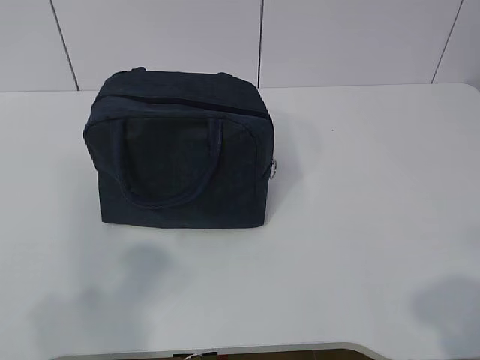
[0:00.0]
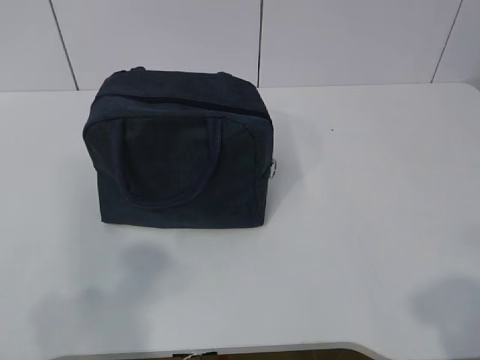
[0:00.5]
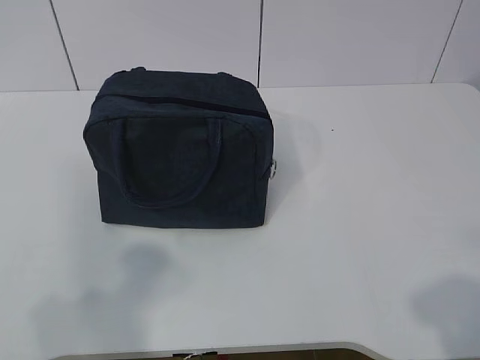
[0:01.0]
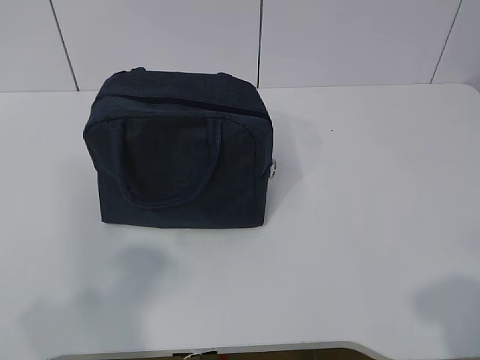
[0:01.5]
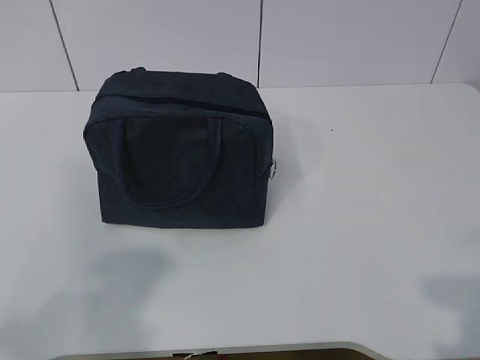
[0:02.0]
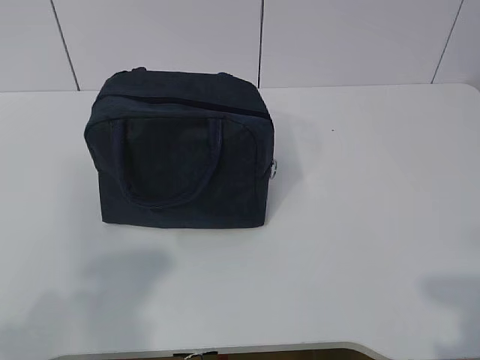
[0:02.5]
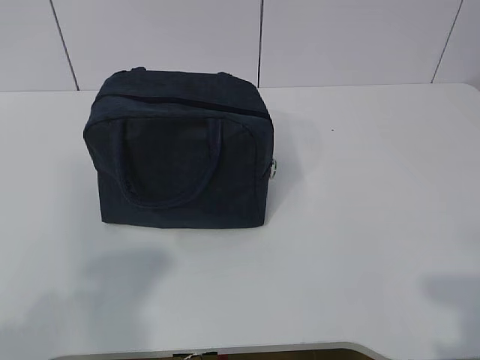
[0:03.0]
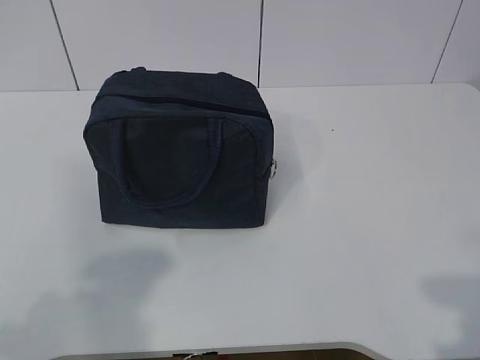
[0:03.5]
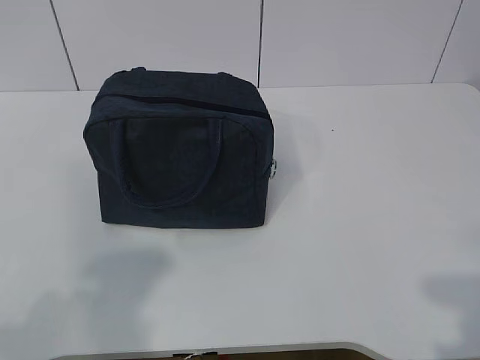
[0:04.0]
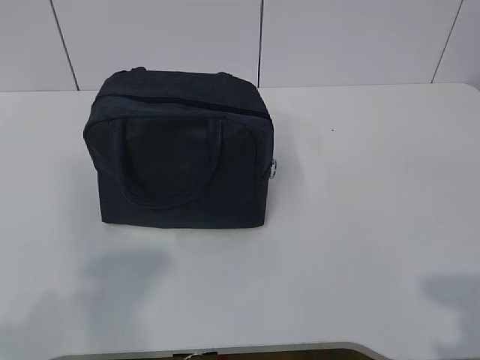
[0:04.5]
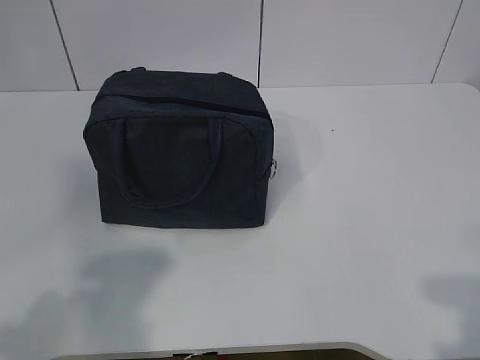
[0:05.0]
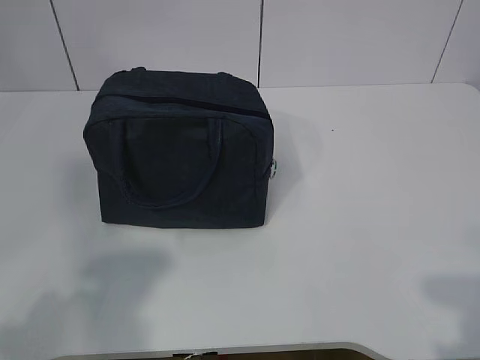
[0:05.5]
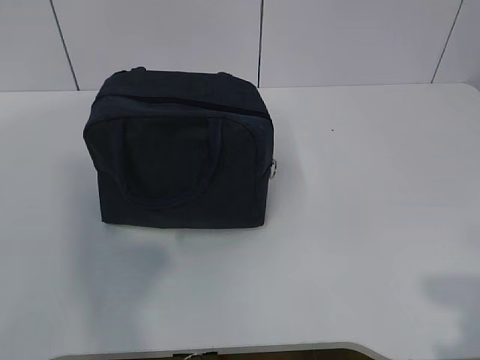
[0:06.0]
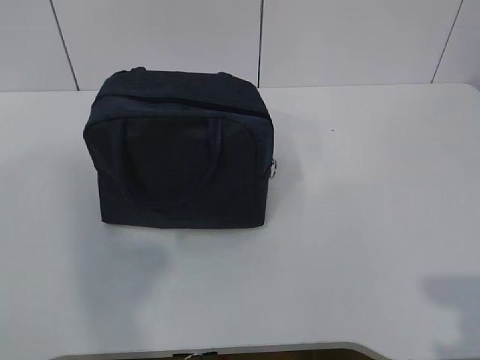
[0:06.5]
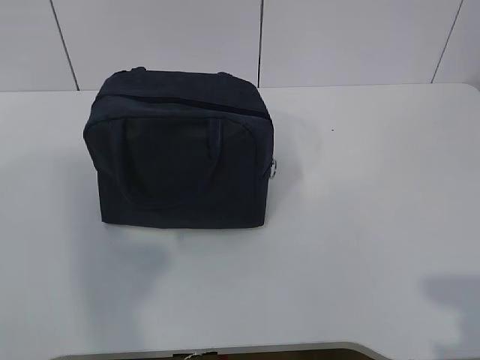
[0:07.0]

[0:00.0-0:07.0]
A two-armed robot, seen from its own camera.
0:03.5 to 0:07.0: Both grippers stay put.

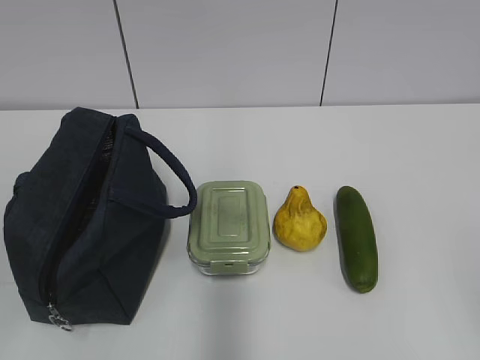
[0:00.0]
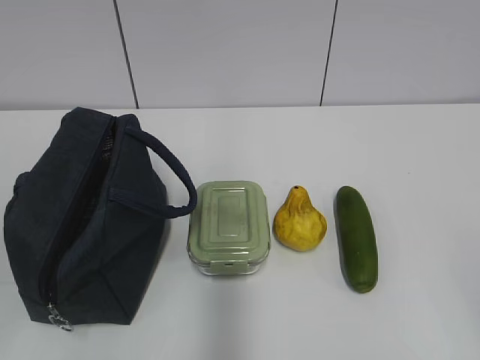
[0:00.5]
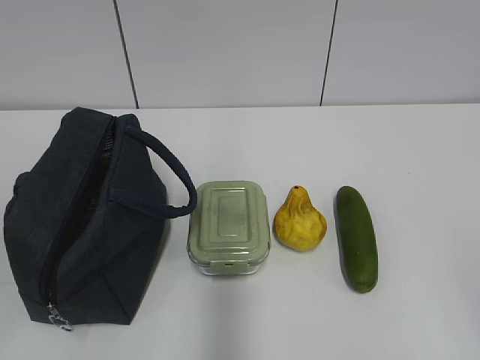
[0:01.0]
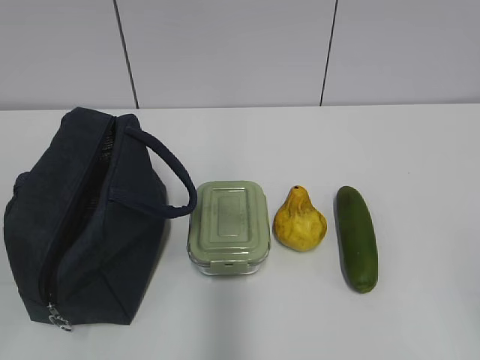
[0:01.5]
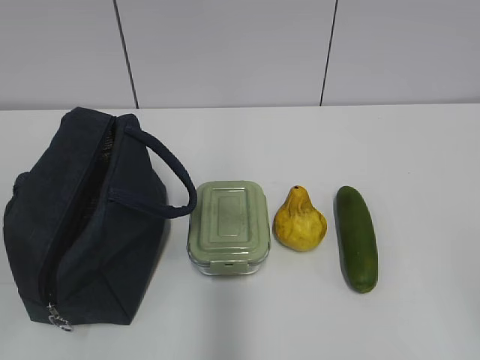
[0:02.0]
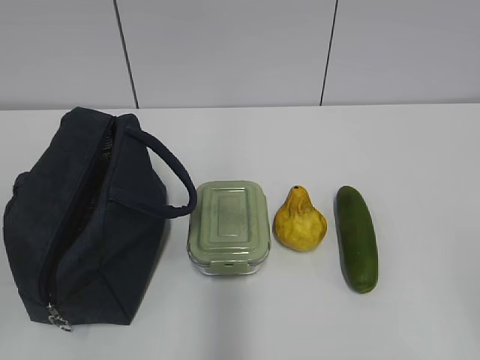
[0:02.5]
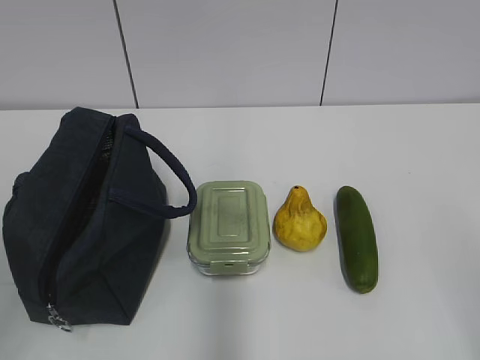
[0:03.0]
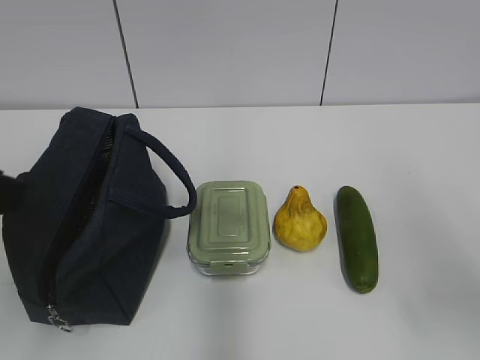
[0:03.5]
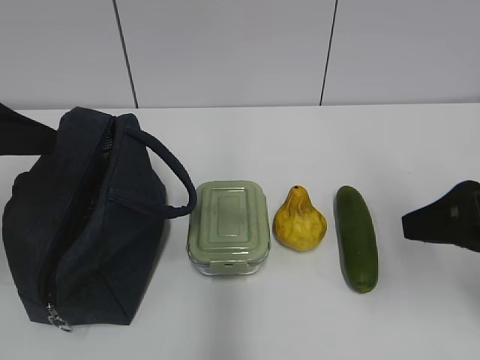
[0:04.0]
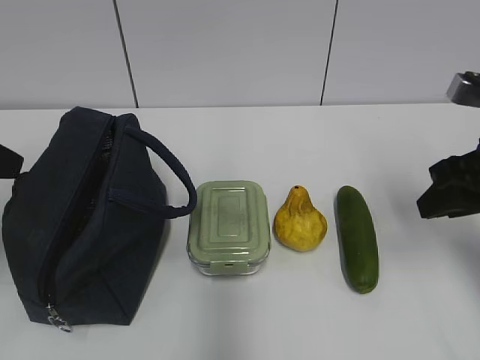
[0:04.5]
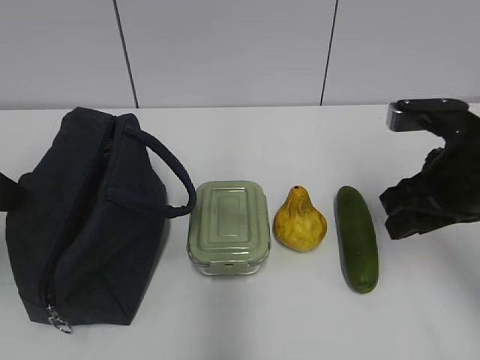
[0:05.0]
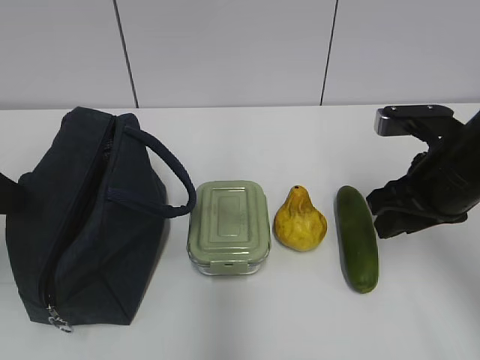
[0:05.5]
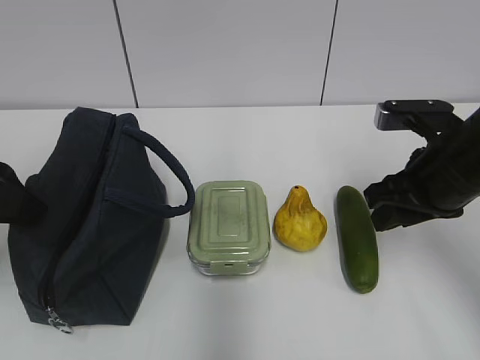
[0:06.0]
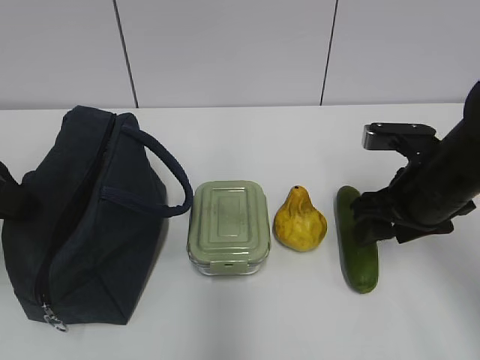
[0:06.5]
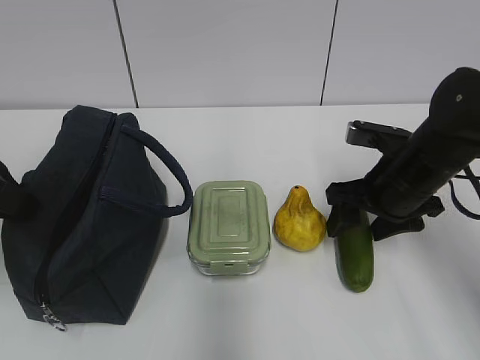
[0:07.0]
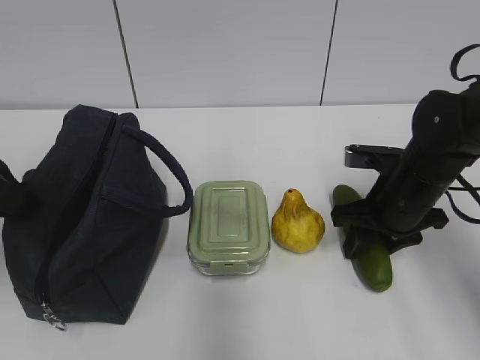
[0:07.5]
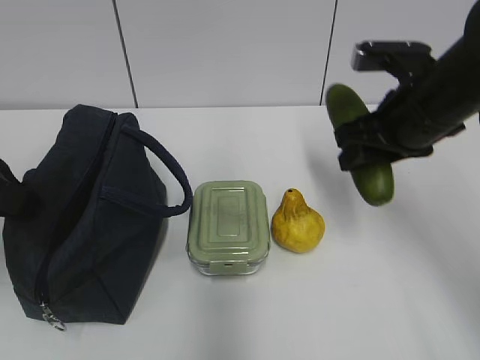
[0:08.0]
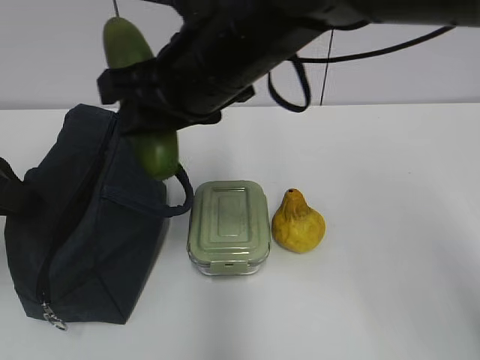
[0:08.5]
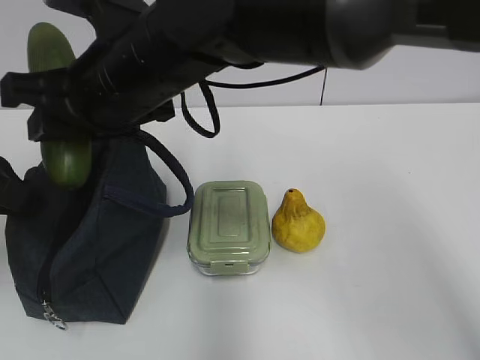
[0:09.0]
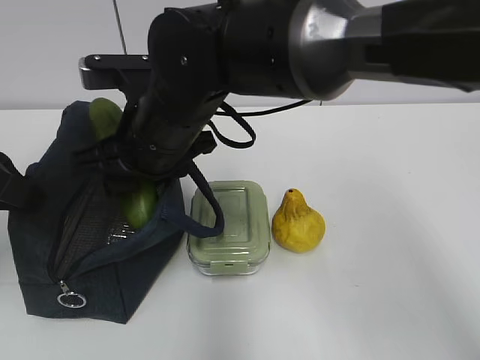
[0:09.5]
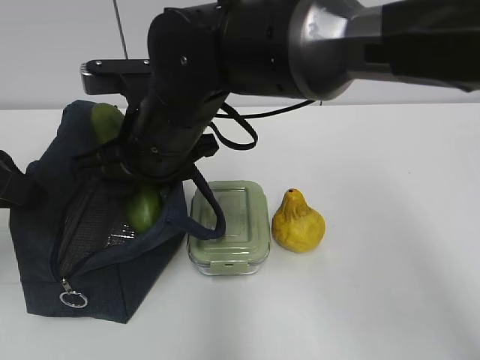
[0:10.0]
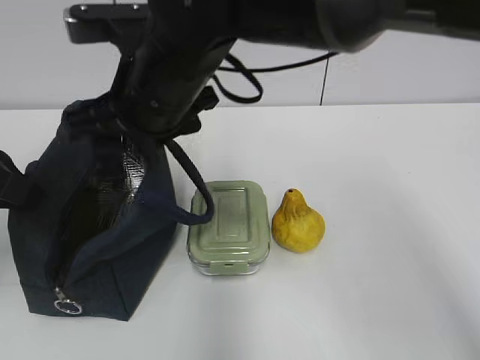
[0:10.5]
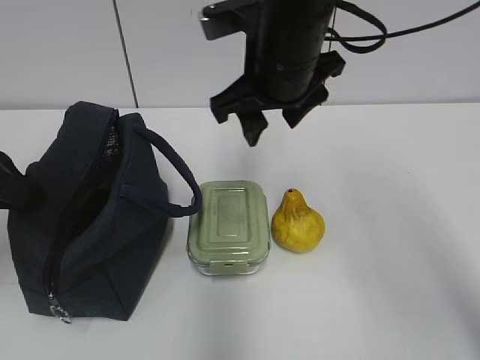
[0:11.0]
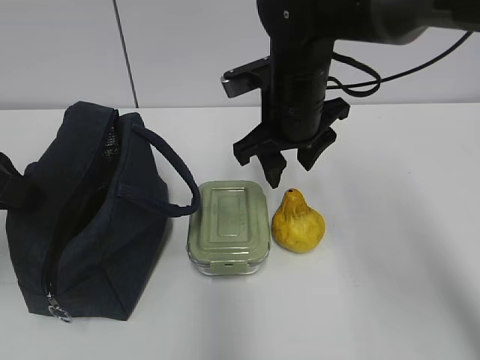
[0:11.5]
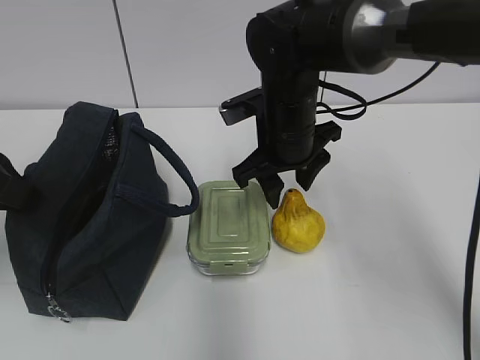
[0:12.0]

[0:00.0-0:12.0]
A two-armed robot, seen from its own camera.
0:02.0 to 0:04.0: The grippers both shift forward by some 20 cm.
0:04.0 to 0:06.0: The right gripper heads forward, covering some 10 cm.
0:06.0 to 0:08.0: The right gripper is displaced upward by approximately 5 cm, and opens, then closes again; the left gripper closes.
0:08.0 to 0:10.0: The right gripper heads to the left, covering some 25 cm.
0:10.0 to 0:12.0: The right gripper is displaced to the right and forward by approximately 15 cm.

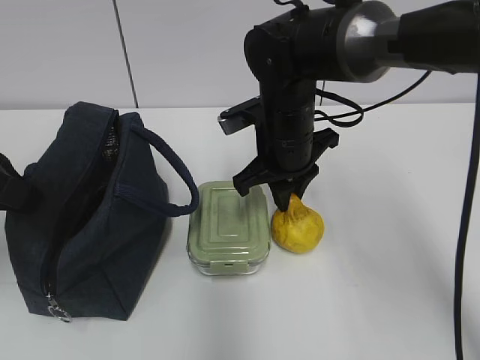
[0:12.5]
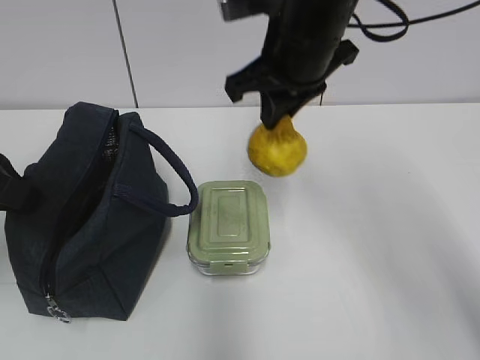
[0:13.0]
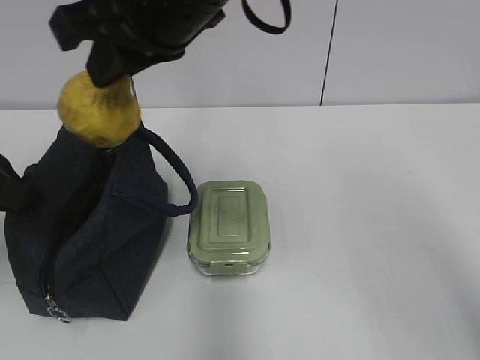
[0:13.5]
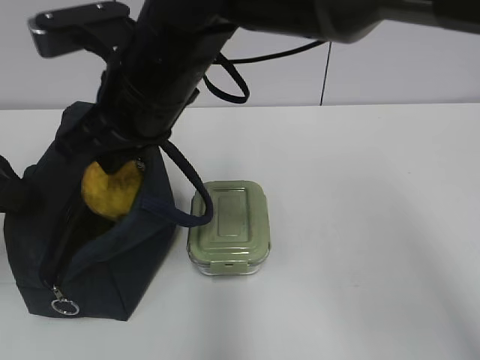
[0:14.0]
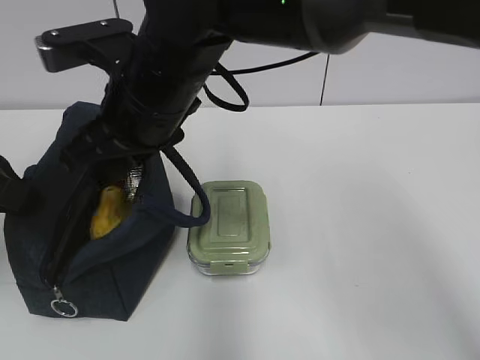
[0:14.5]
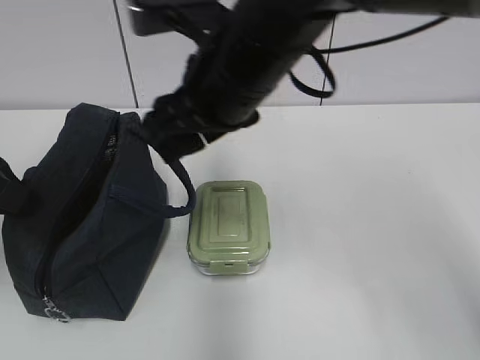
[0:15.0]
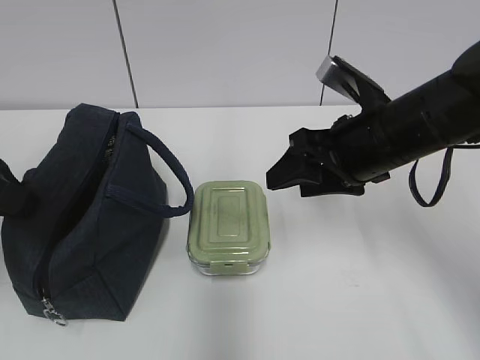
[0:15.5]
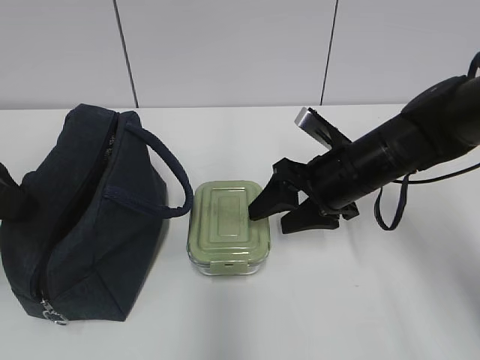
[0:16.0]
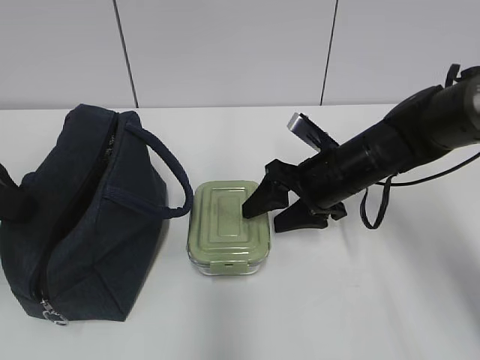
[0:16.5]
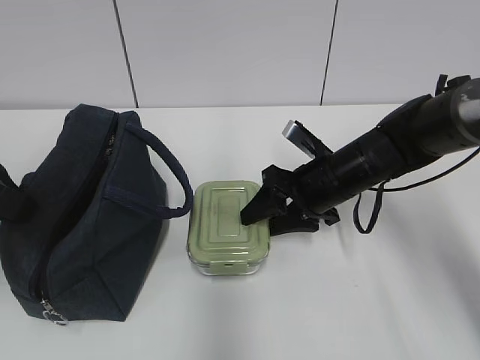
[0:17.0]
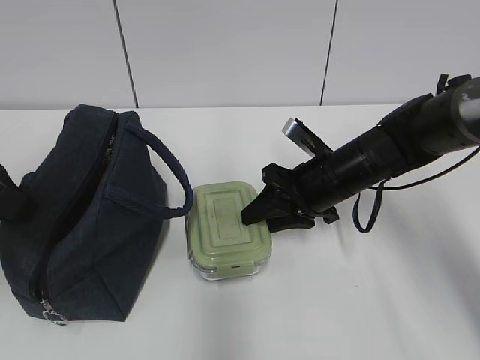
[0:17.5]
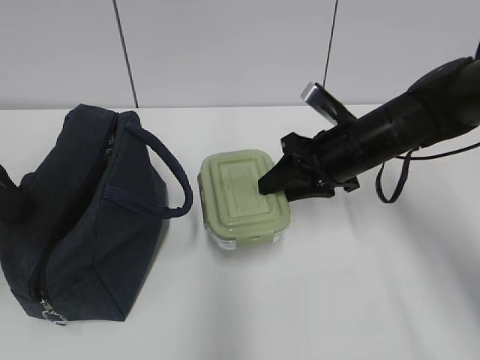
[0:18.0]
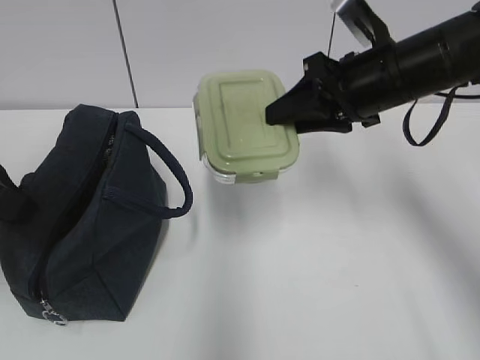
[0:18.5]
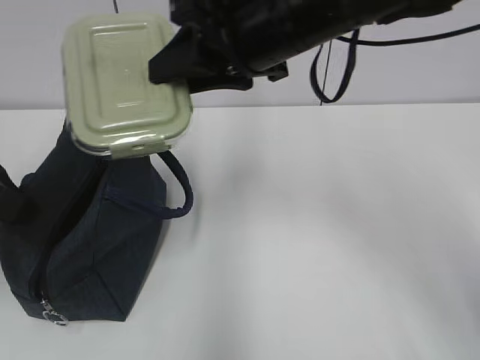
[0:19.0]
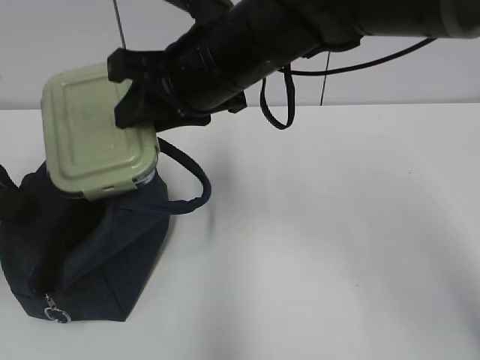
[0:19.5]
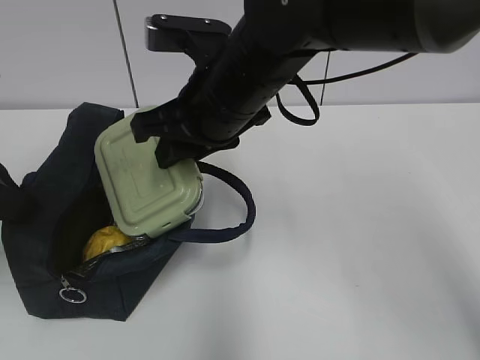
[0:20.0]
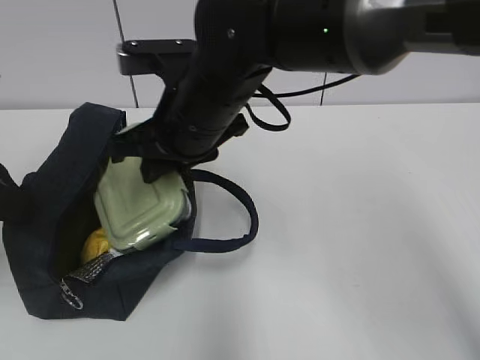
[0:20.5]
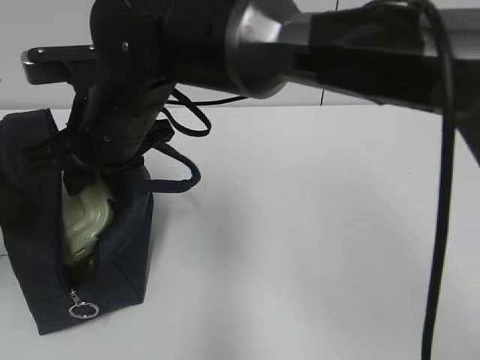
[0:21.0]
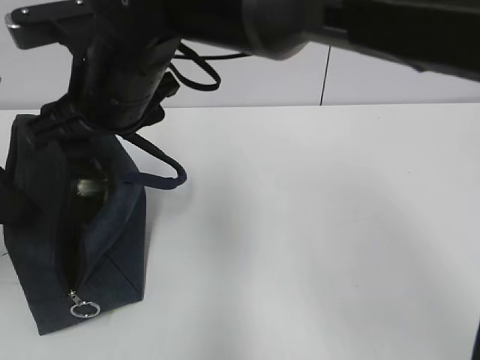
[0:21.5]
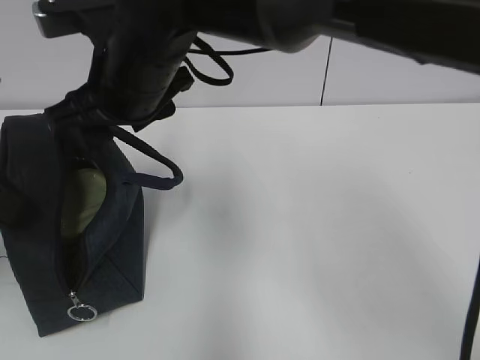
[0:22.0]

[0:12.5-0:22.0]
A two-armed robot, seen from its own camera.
0:12.5 to 0:14.5: The right gripper is displaced to the left, upward and backward by roughly 15 cm, and opens.
0:14.5 to 0:16.5: The right gripper goes about 25 cm to the right and downward.
0:16.5 to 0:18.0: The right gripper closes up.
0:18.0 to 0:20.0: The right gripper moves to the left and upward, some 20 cm.
0:20.0 to 0:22.0: The right gripper moves to the left, roughly 10 cm, and opens its fingers.
